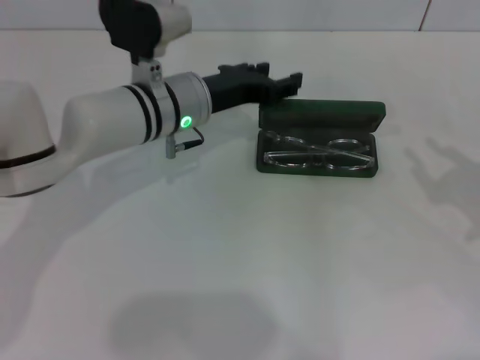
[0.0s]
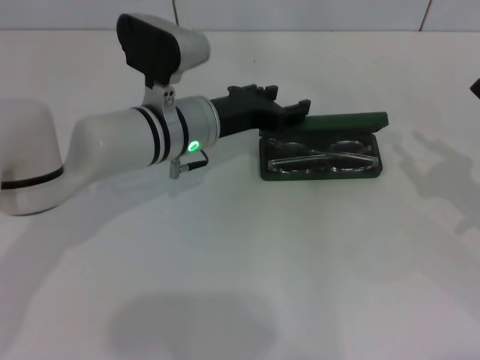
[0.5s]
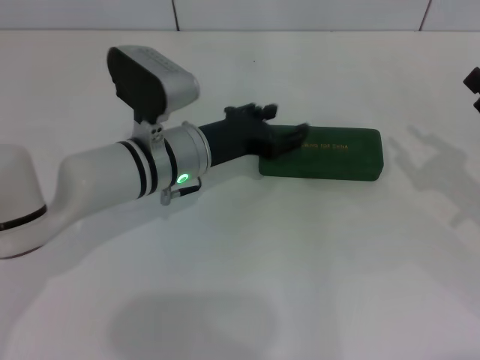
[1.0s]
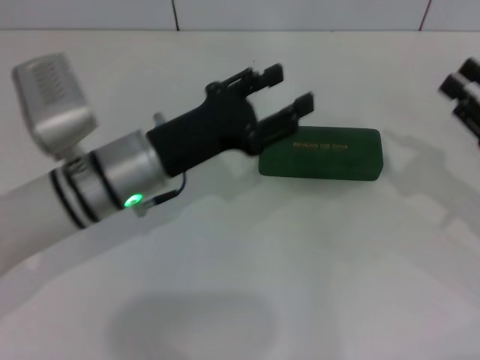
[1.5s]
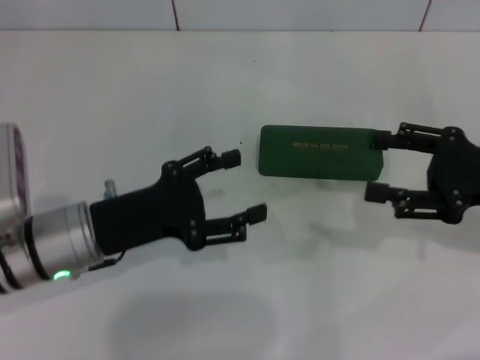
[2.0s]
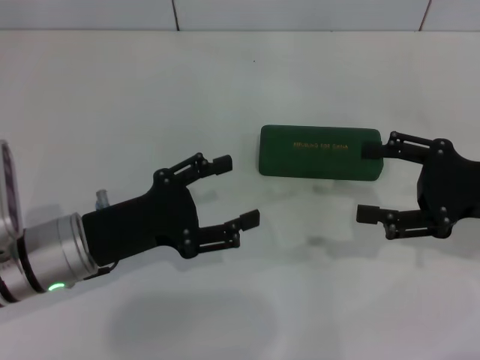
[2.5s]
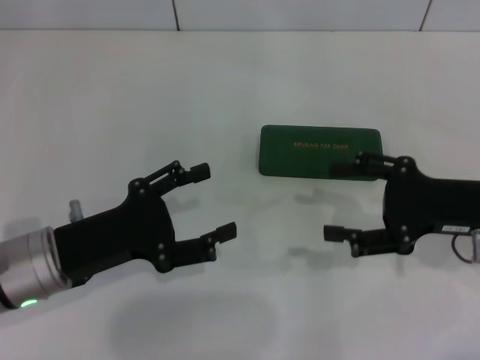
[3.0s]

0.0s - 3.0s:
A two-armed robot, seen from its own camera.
0.0s - 1.5s: The left gripper is displaced backward by some 10 cm.
1.5s - 3.0s: The left gripper travels to the left and backward by approximately 10 cm. The right gripper is displaced to the left by some 5 cm, and opens up.

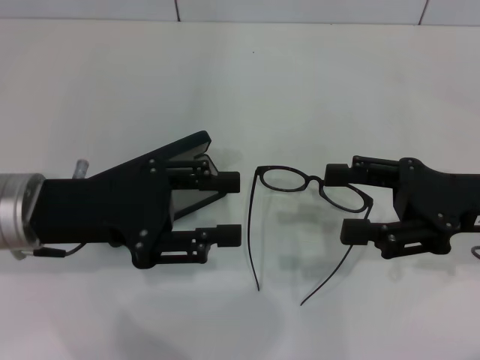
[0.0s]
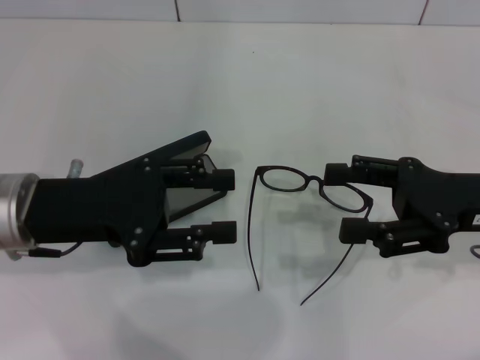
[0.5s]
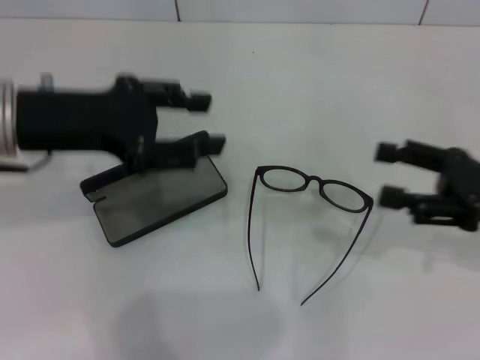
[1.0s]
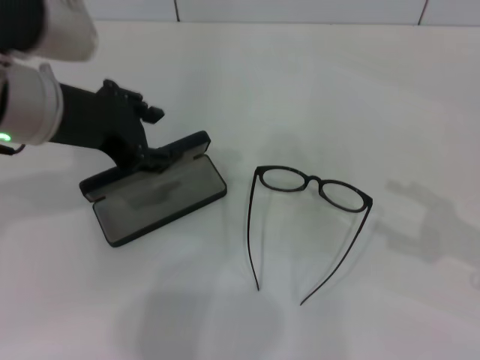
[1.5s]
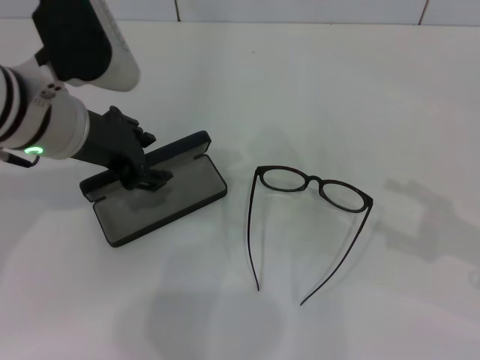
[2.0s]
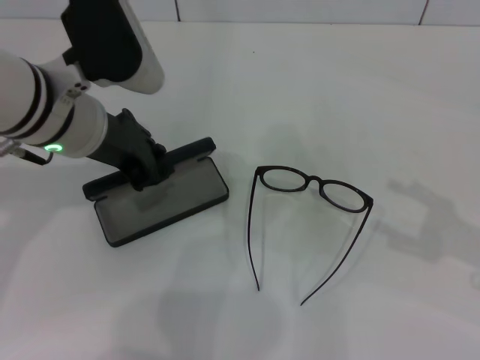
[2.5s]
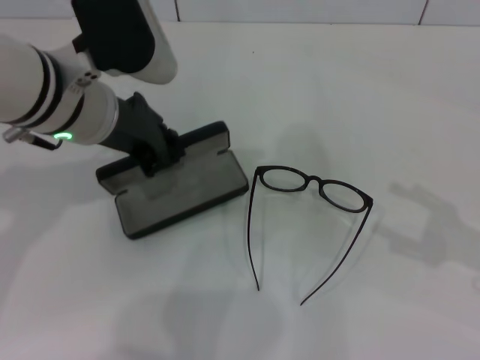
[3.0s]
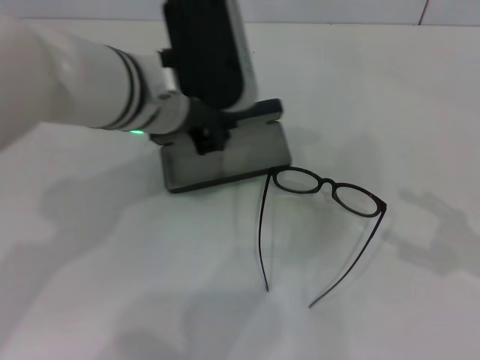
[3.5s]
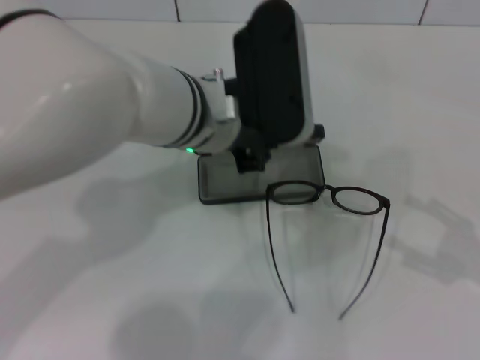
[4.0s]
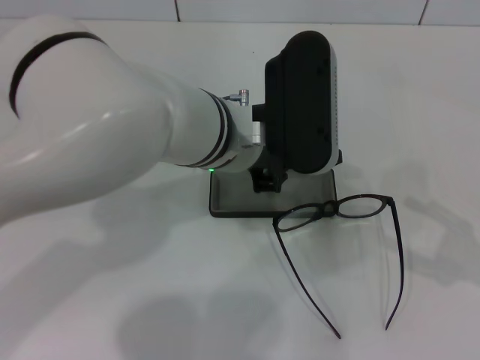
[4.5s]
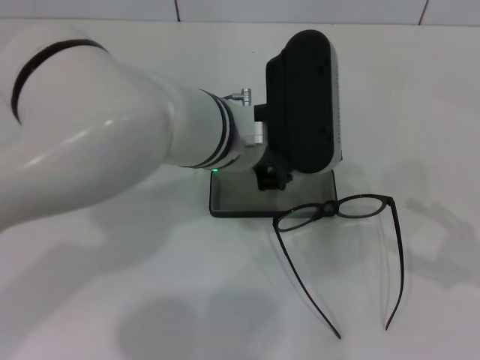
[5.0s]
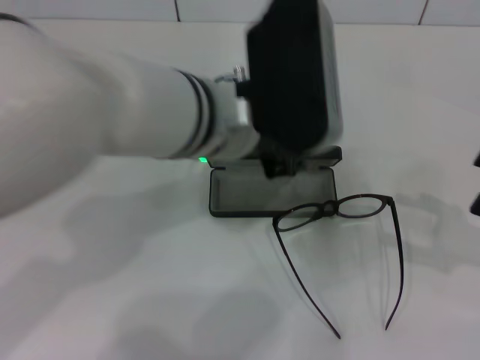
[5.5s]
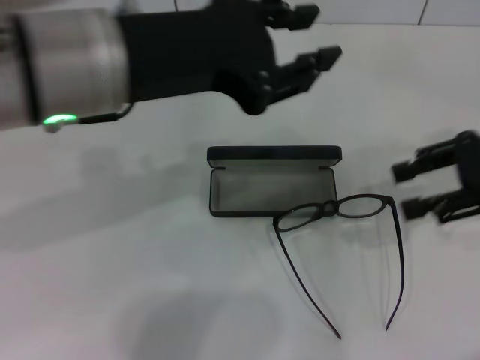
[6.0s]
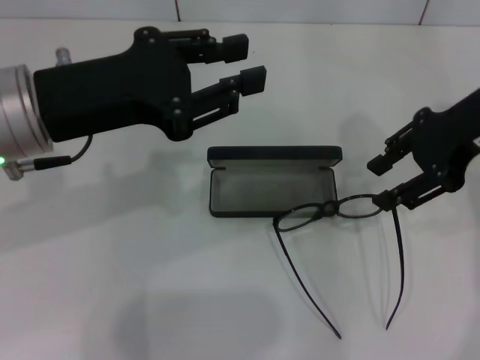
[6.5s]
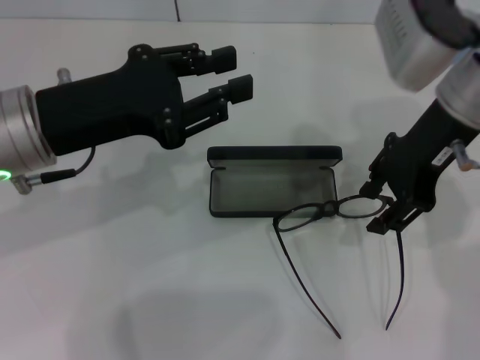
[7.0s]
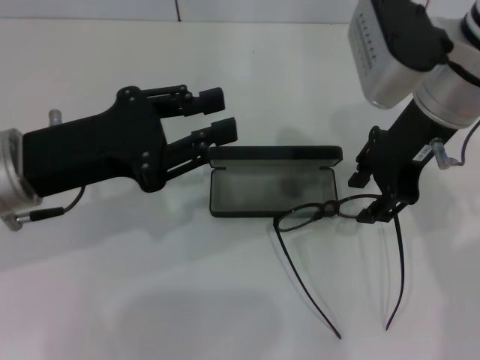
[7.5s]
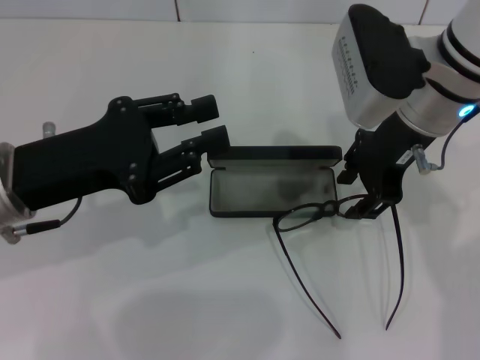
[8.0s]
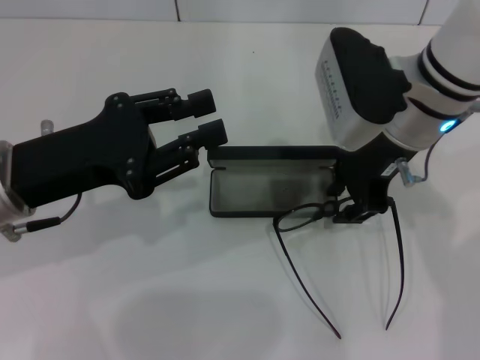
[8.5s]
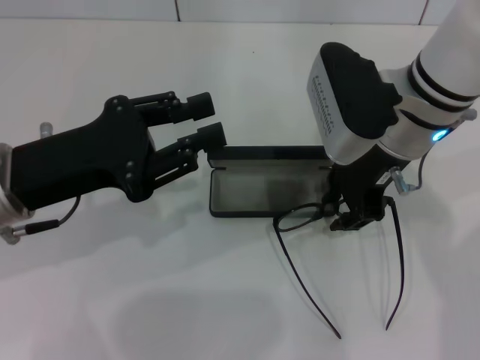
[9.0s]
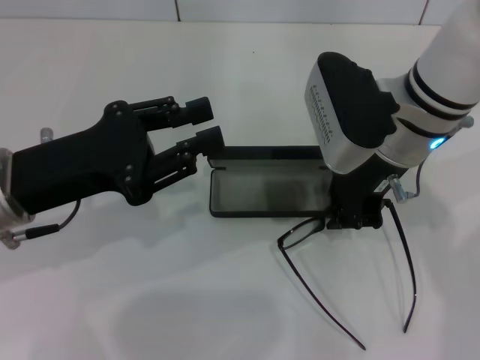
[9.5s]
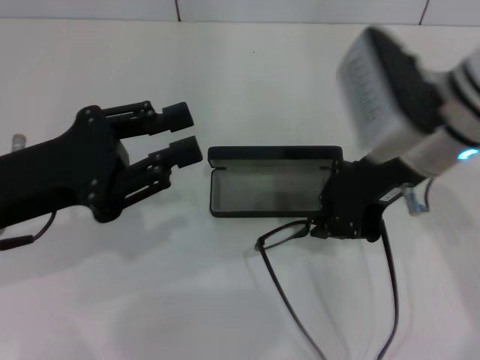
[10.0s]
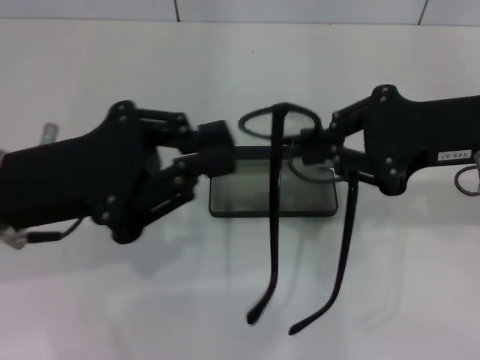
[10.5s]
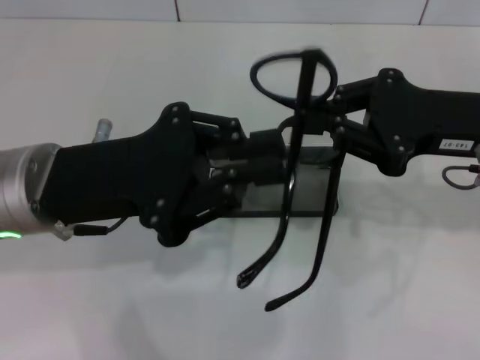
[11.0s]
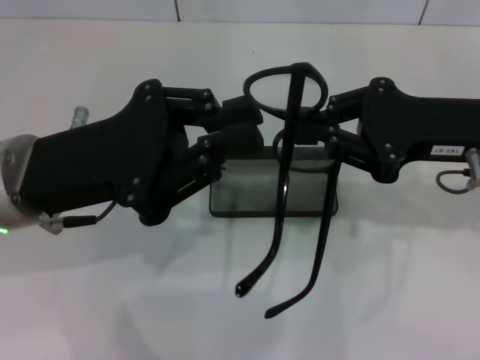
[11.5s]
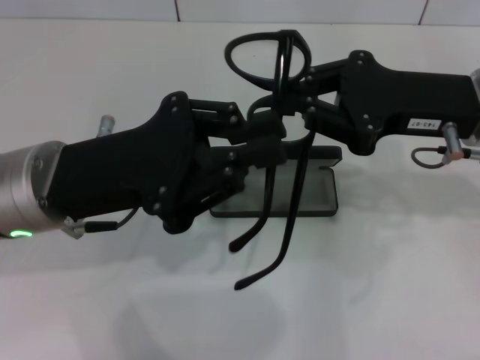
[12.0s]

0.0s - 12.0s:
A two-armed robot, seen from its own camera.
Step, 0.0s - 2.0s: Grab the glasses case with your left hand.
Step, 3.0s - 5.0s: Place the glasses case in the center of the table with your left hand.
Step, 5.5s - 9.0s: Grab the eyeglass frame with your right hand.
0.0s - 2.0s: The left gripper shifts approximately 10 cm forward and upward; the right gripper heads to the right and backward, covering approximately 10 cm.
2.0s - 4.0s: The left gripper heads to the right, covering about 15 cm, and closes.
4.0s - 6.0s: The left gripper goes some 15 cm upward, to the left and backward, and opens up. The right gripper travels forward, upward and to the left by some 15 cm.
6.0s - 8.0s: The right gripper moves to the left, roughly 15 cm. The left gripper moves downward and to the left, approximately 15 cm.
8.0s - 10.0s: The right gripper closes.
10.0s - 12.0s: The grippers both shift to the right by about 5 cm.

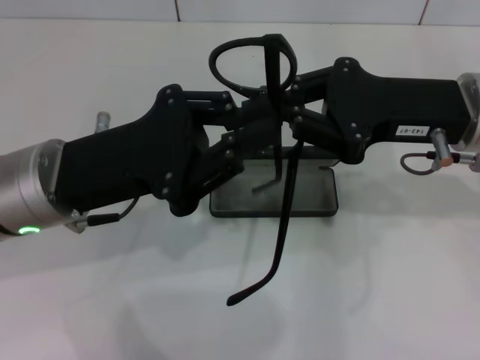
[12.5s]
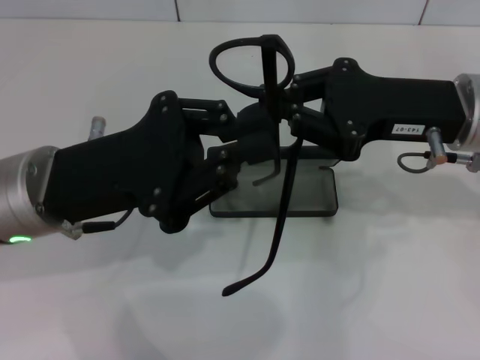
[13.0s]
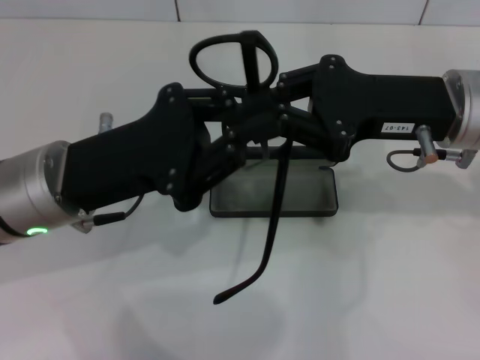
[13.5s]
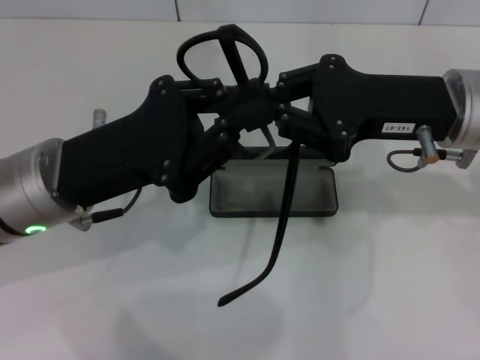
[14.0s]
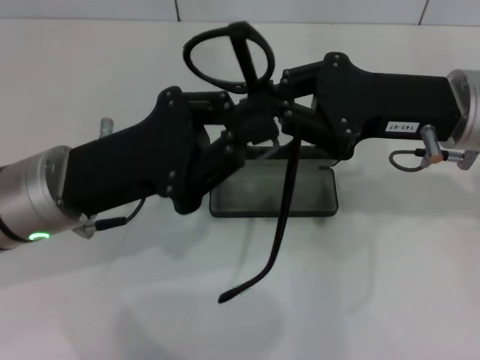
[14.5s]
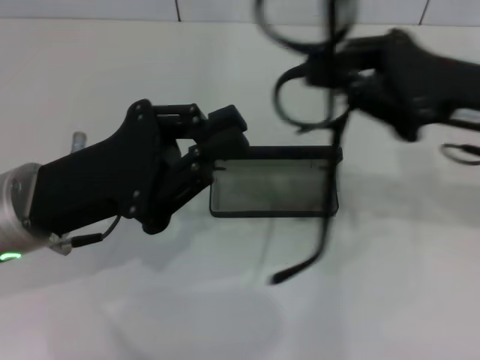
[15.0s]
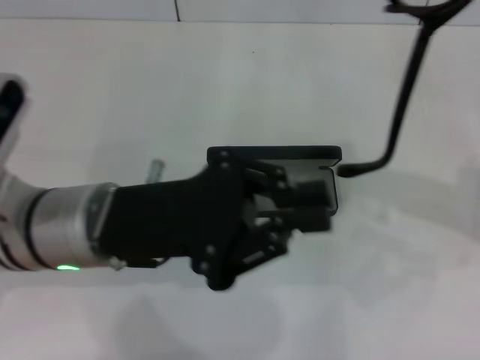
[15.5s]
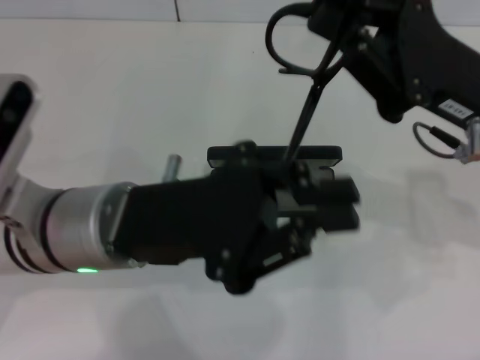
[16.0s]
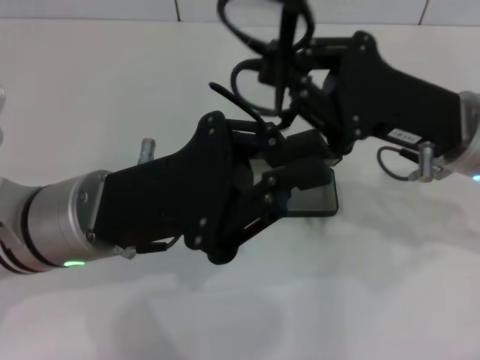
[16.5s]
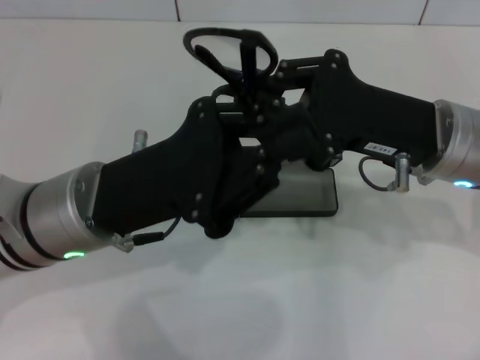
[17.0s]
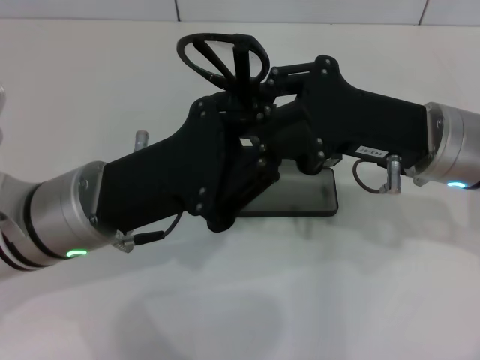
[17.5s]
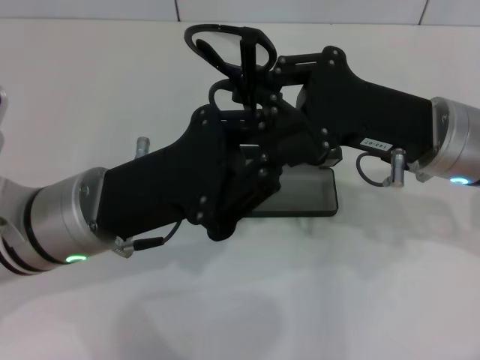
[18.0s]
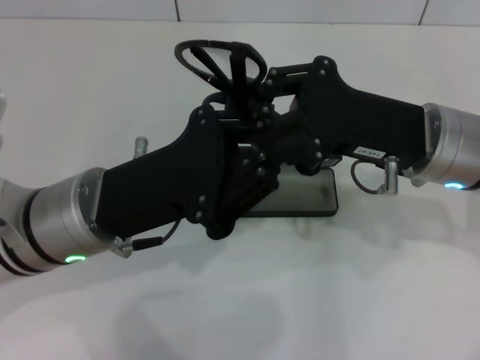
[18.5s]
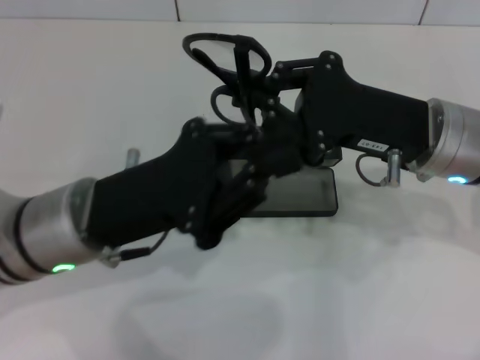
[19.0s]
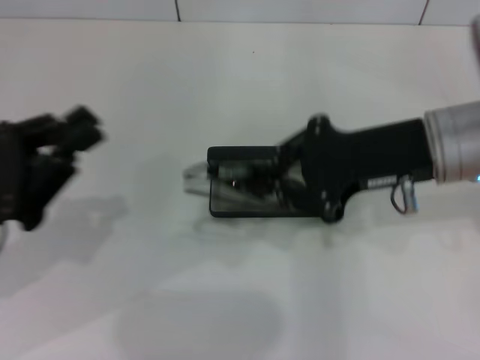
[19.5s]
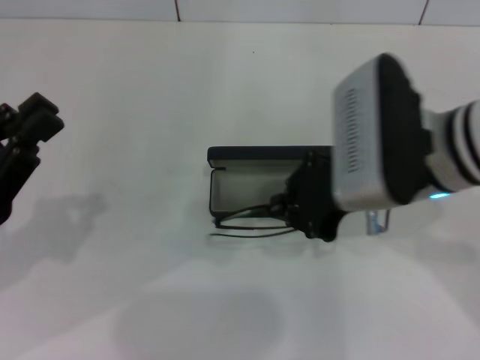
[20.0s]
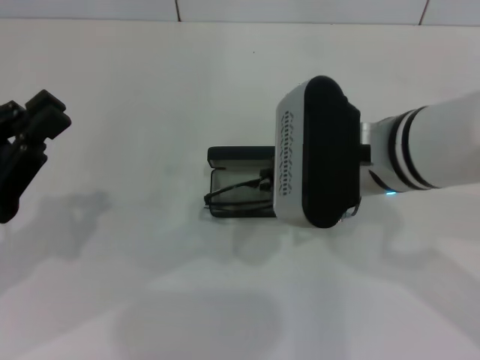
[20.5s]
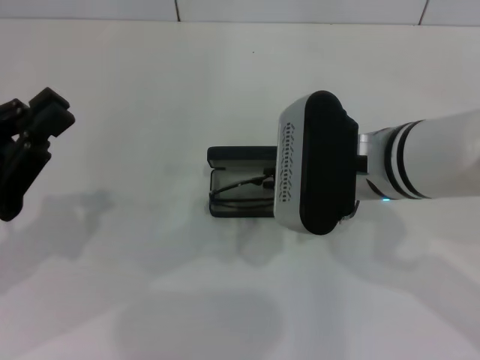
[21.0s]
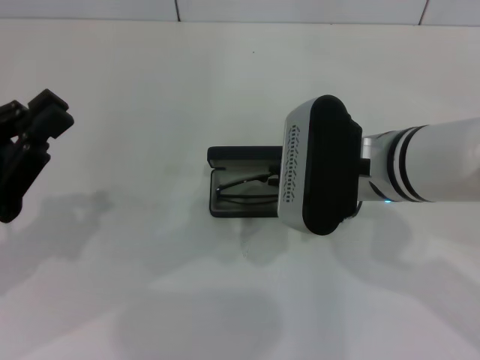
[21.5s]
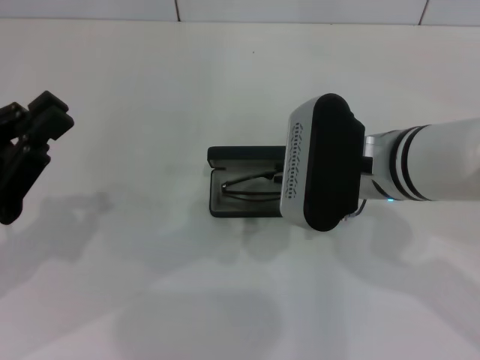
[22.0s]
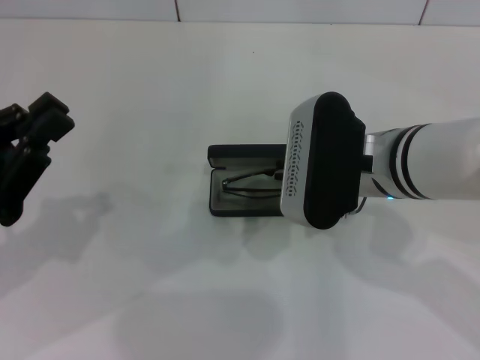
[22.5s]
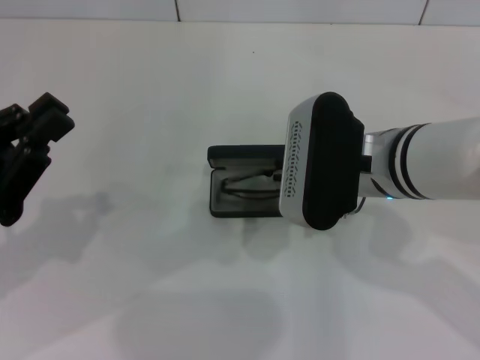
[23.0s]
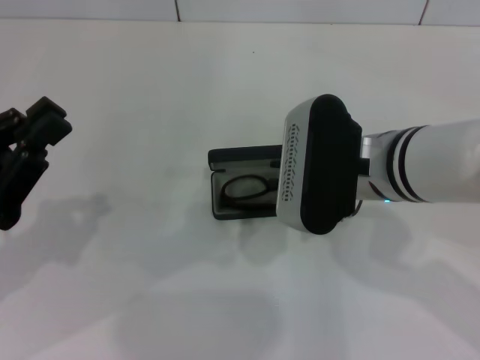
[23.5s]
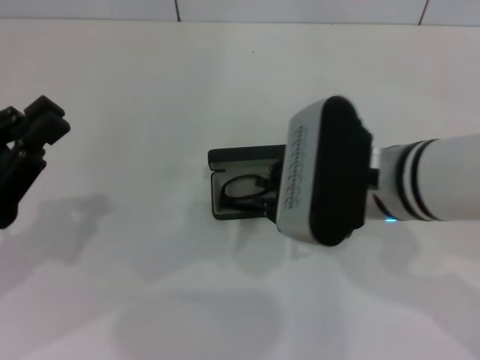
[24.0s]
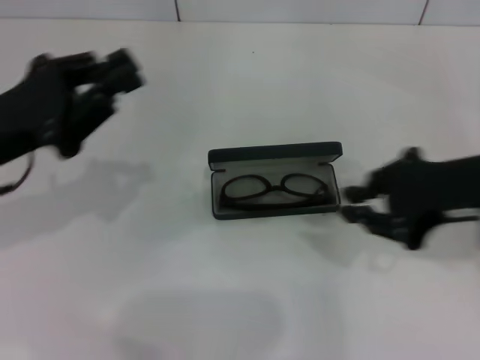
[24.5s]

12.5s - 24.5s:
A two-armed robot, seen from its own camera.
Step, 12.5s - 18.5s: Lift the glasses with your right hand.
Step, 19.5s - 24.0s: Put the glasses into the case with your right hand.
12.5s - 14.5s: Both grippers stay put.
16.5s - 18.5s: The grippers make only small movements.
18.5s - 20.5s: The right gripper travels to the left by about 5 cm. Meanwhile the left gripper heads to the left, covering about 15 cm.
20.5s - 22.5s: There are only small adjustments of the grippers.
22.5s - 24.5s: The right gripper shifts approximately 15 cm to the right and upward, while the left gripper heads forward, covering about 5 cm.
